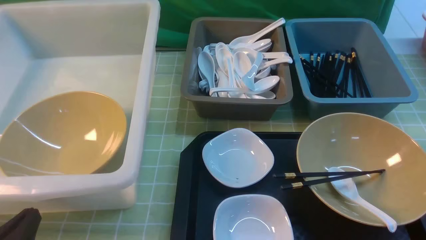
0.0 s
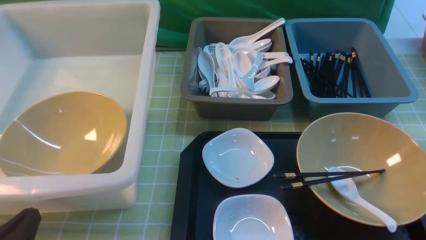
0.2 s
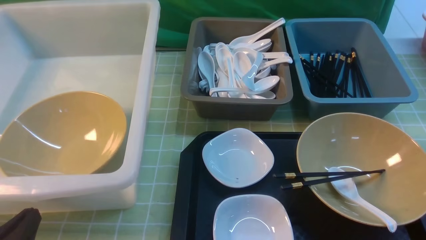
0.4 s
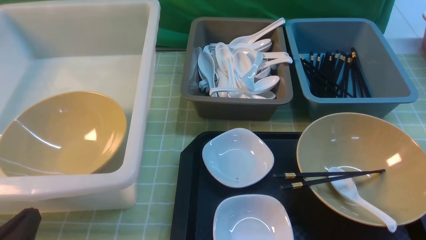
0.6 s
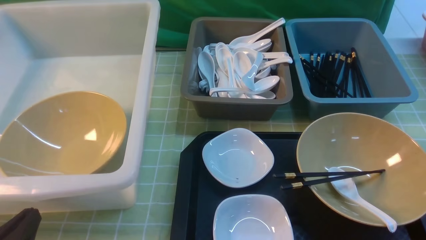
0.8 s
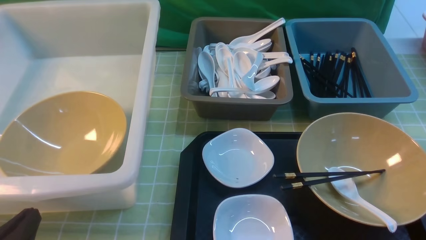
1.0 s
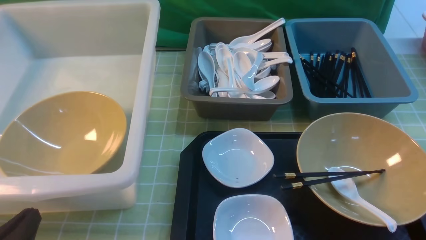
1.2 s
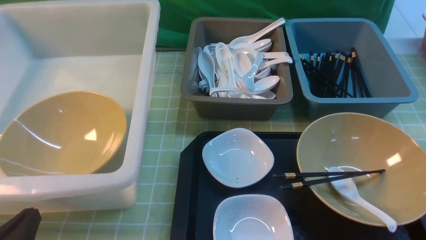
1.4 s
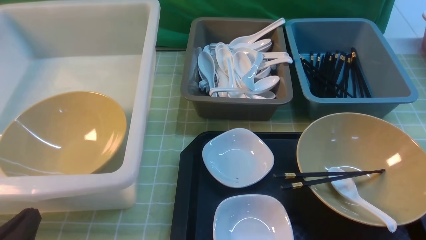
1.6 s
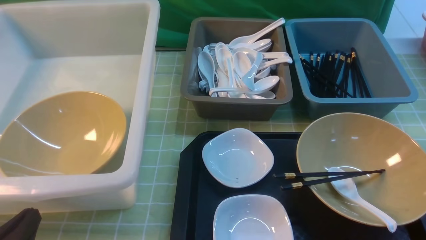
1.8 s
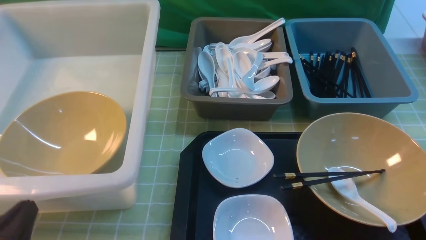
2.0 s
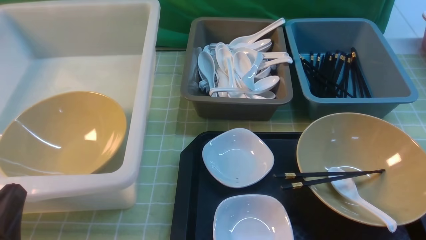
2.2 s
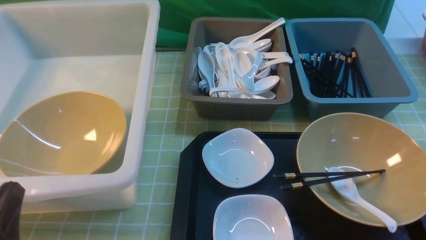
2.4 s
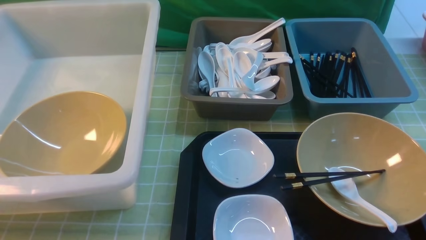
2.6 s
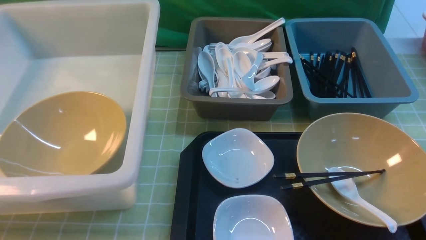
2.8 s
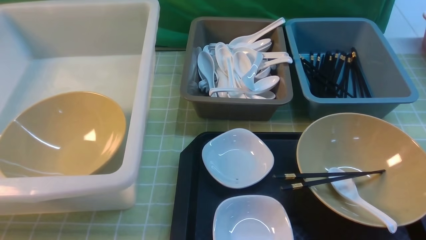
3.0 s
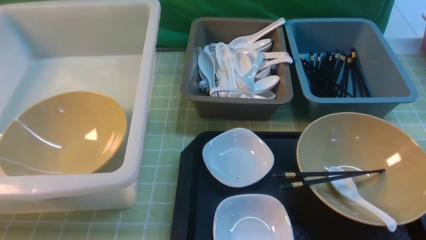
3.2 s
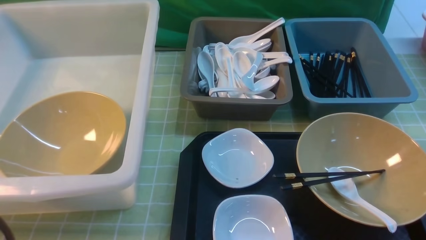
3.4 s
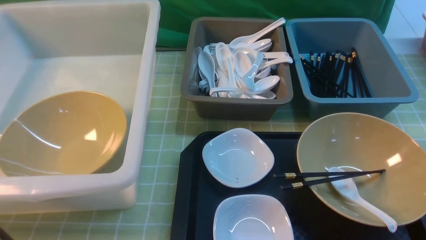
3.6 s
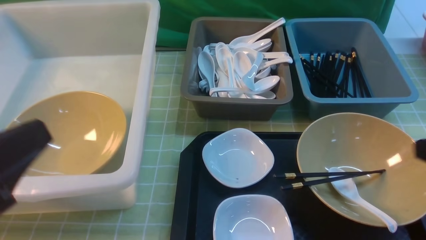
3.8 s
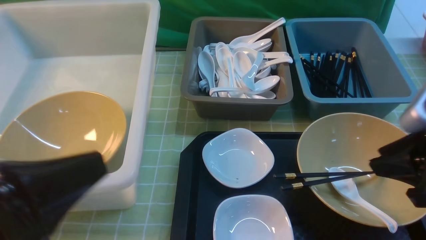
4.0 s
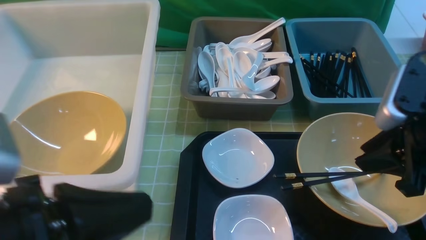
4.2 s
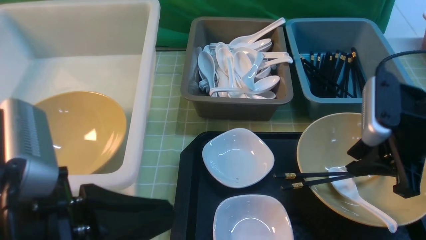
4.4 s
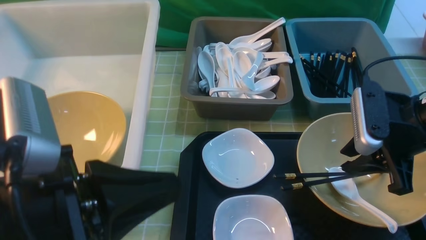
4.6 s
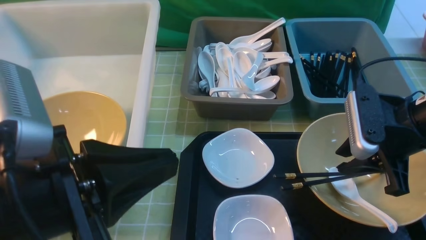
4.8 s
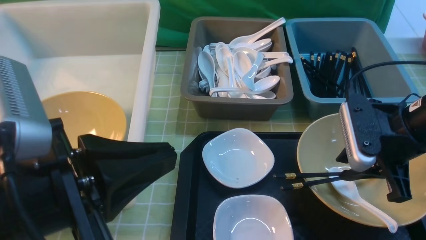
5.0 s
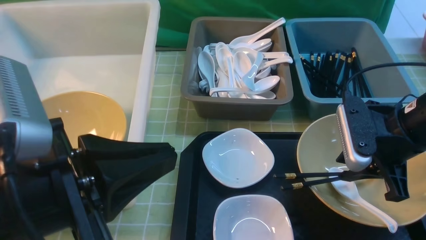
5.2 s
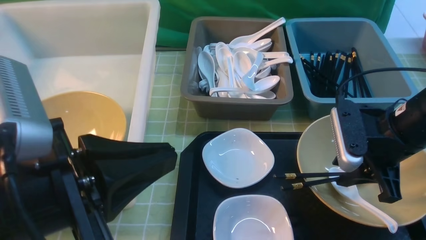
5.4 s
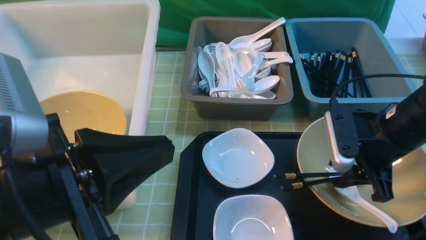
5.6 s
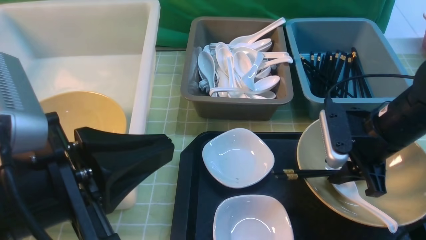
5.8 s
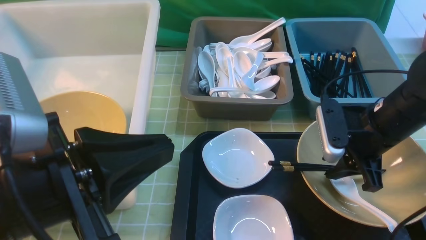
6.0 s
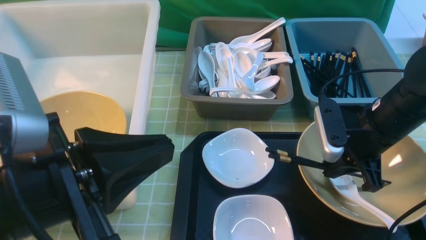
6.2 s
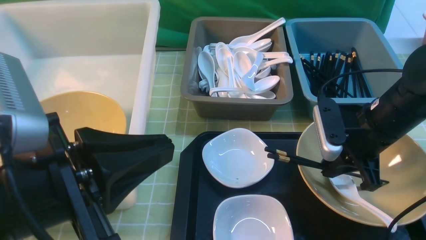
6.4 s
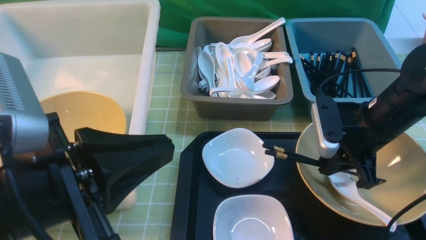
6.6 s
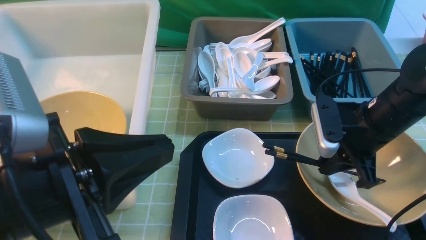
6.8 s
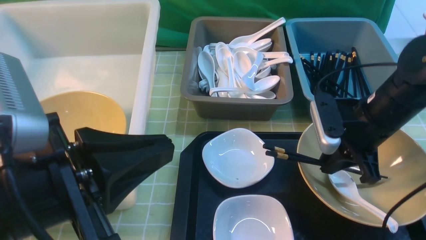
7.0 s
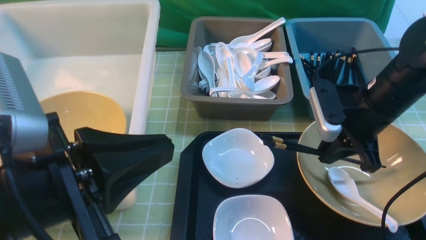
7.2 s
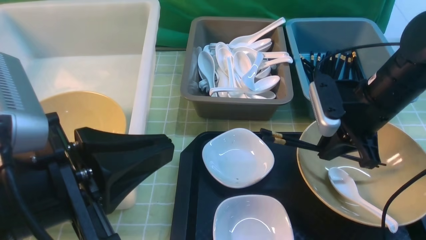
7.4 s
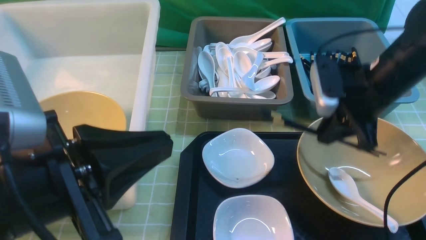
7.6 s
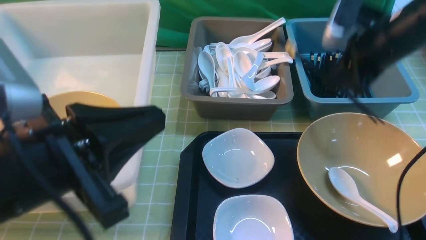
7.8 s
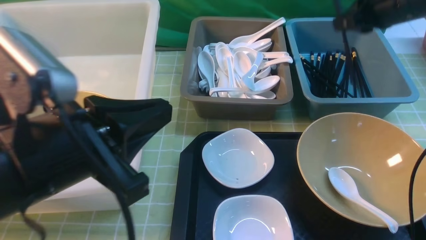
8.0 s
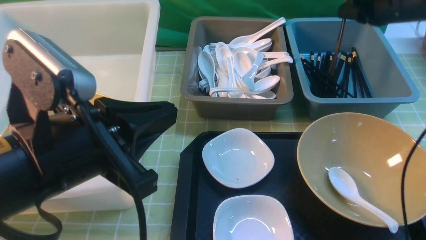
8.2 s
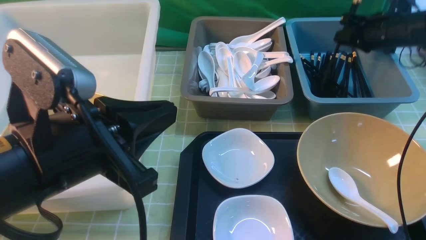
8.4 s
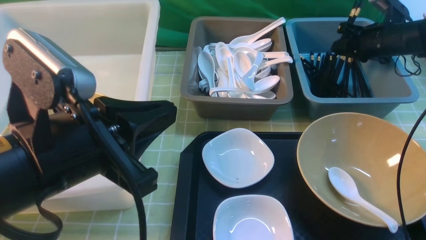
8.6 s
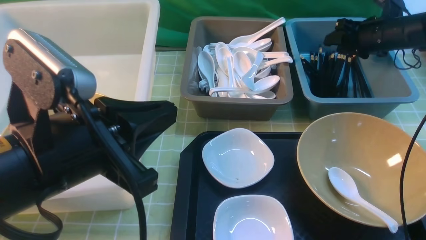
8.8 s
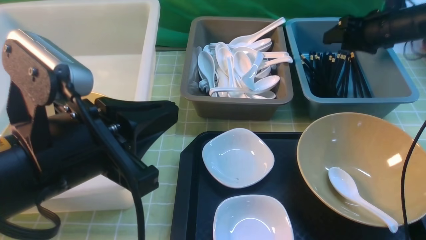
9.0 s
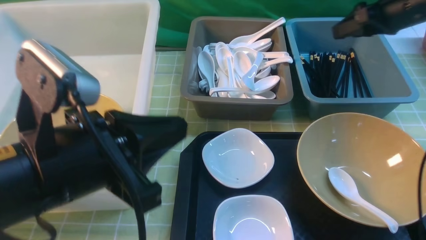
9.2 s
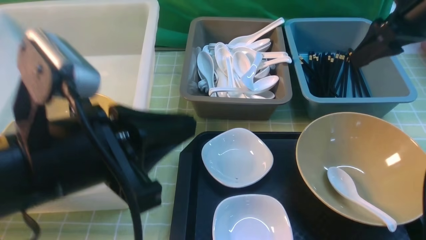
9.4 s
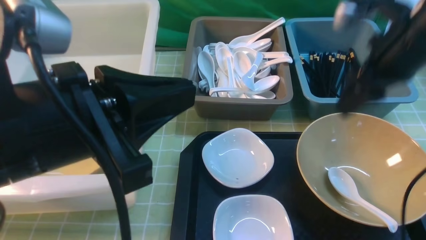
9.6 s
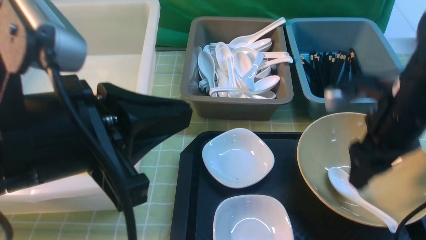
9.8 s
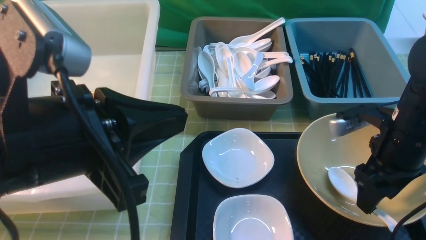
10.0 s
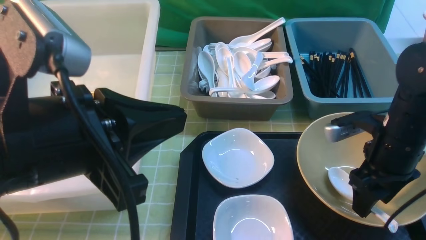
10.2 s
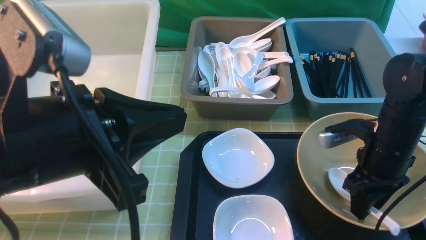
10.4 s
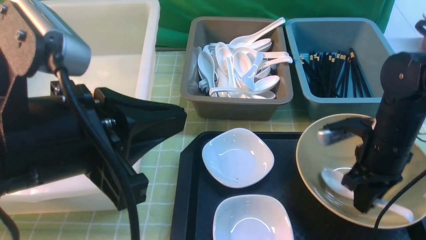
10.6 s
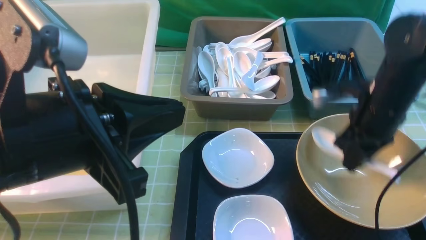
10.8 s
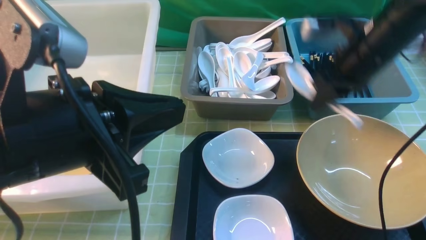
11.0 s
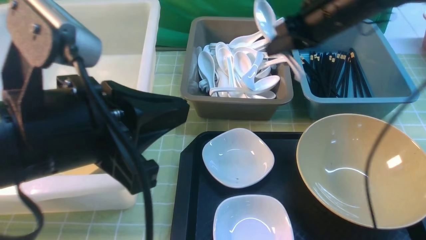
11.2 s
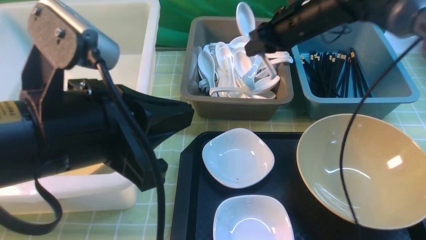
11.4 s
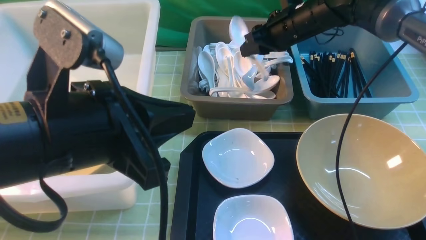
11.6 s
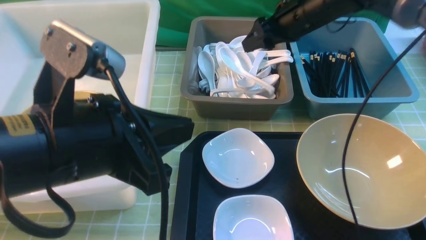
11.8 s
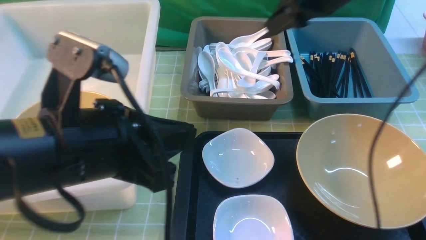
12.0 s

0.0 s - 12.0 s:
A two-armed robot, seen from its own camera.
Task of the whole recording: on green table put chopsticks spoon bowls plates into blue grey white boxes.
Step, 0.0 s - 7.4 s: use the right arm to grab the chopsticks.
Step, 7.6 s - 9.2 s: use the right arm to put the chopsticks into the small storage box on the right.
Step, 9.6 s - 10.8 s: use the right arm to grab the soup spoon in the middle.
0.0 s - 1.6 s: Both grippers stay about where they are.
1.6 s - 3.0 s: Both grippers travel together upward, approximately 15 cm.
3.0 s - 4.4 s: The right gripper is displaced forward by roughly 20 cm. The left gripper shifts about 10 cm to the right.
4.4 s - 6.0 s: The right gripper heads downward and forward, covering some 10 cm.
6.0 s - 7.6 s: The right gripper goes some 5 cm upward.
7.6 s - 9.0 s: The right gripper travels forward and to the right by some 15 cm, and opens.
9.0 s - 10.4 s: The right gripper goes approximately 20 cm backward, to the left and downward.
10.4 s - 12.0 s: The left gripper changes place by roughly 5 cm. Meanwhile the right gripper is displaced upward and forward by roughly 25 cm, and opens.

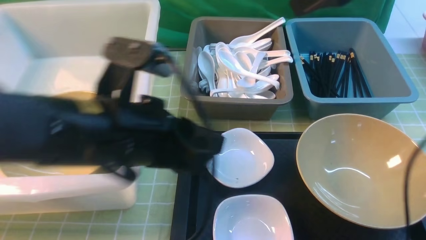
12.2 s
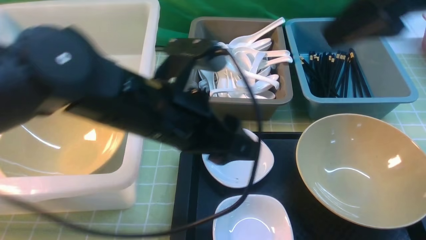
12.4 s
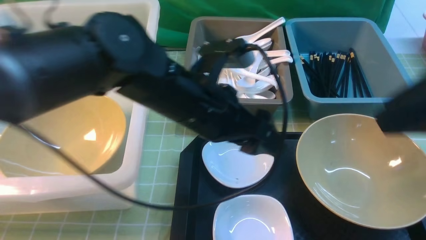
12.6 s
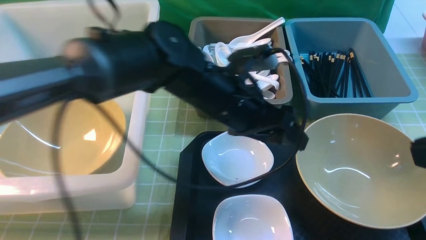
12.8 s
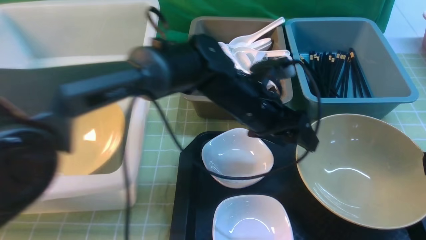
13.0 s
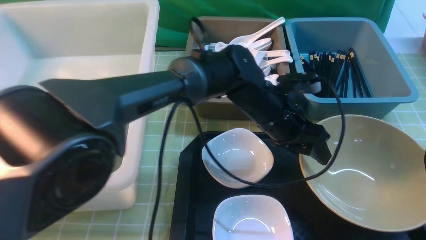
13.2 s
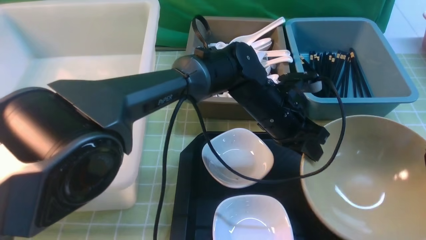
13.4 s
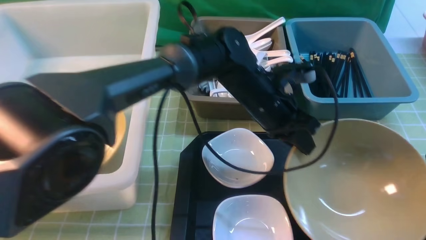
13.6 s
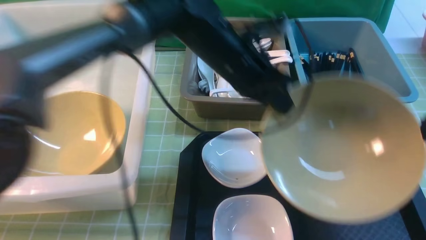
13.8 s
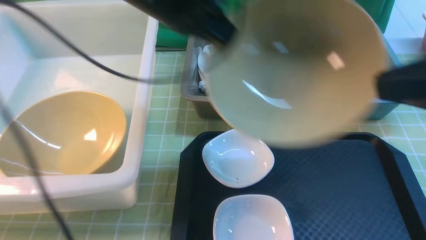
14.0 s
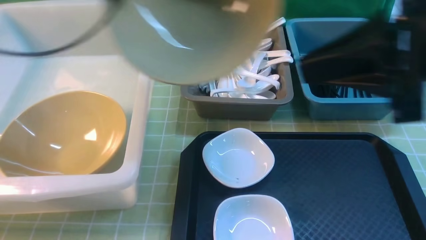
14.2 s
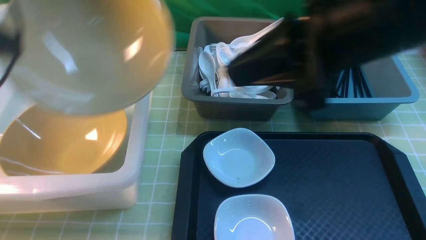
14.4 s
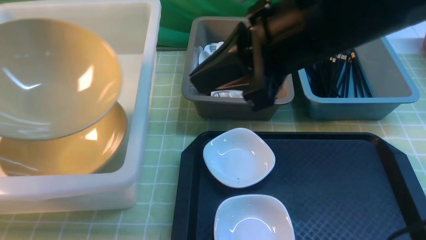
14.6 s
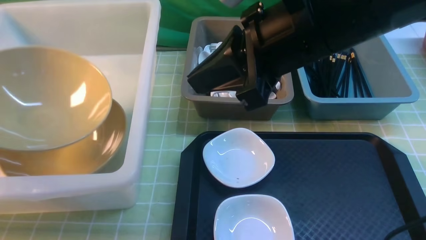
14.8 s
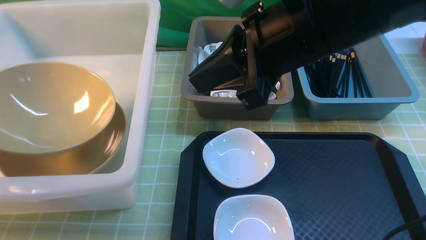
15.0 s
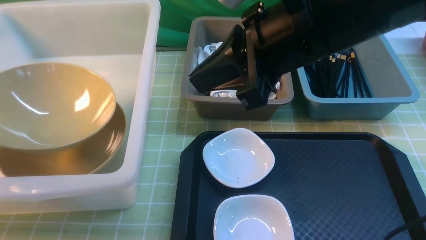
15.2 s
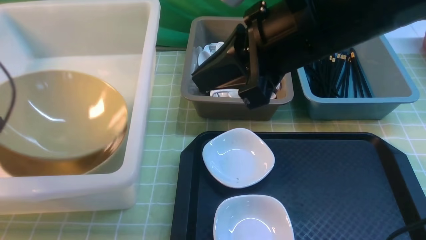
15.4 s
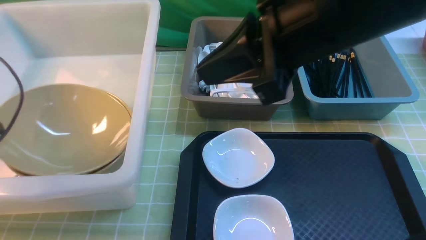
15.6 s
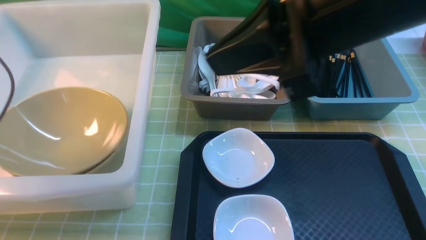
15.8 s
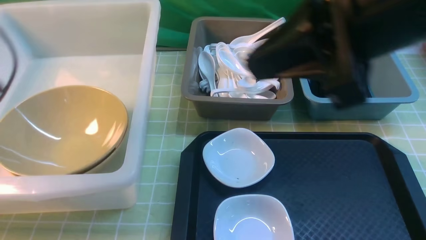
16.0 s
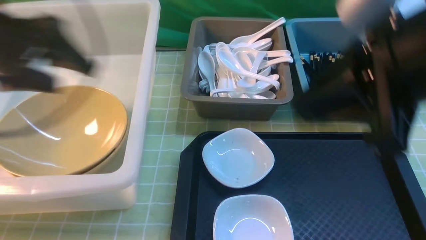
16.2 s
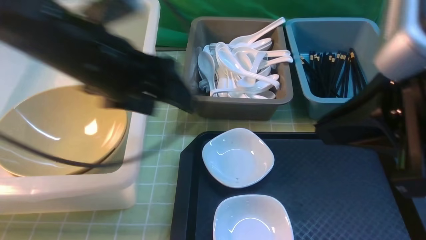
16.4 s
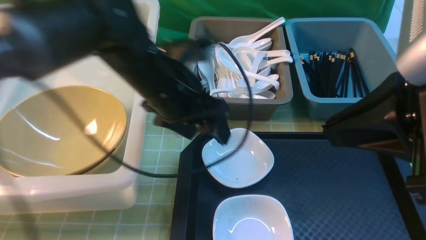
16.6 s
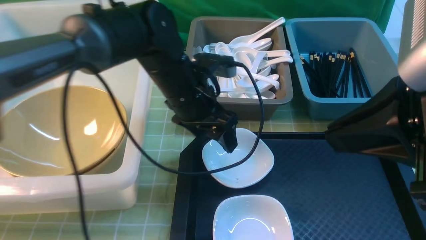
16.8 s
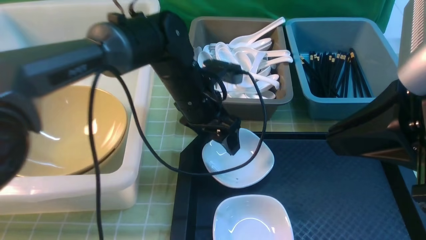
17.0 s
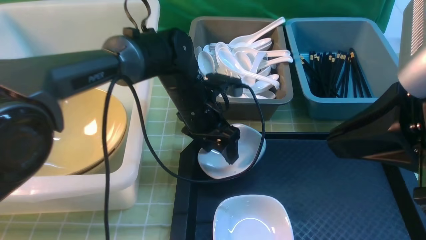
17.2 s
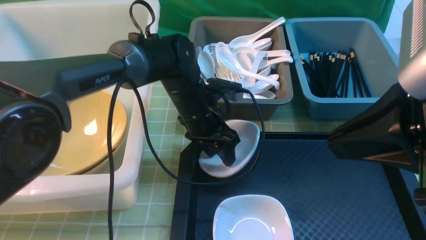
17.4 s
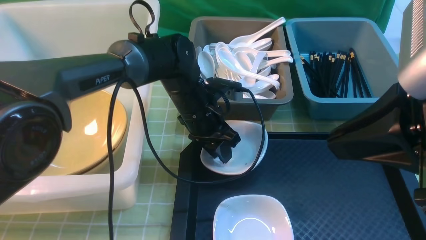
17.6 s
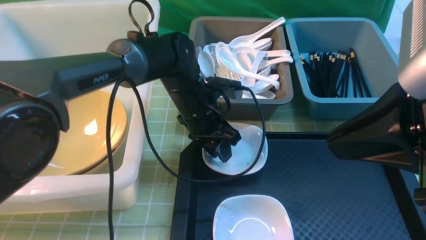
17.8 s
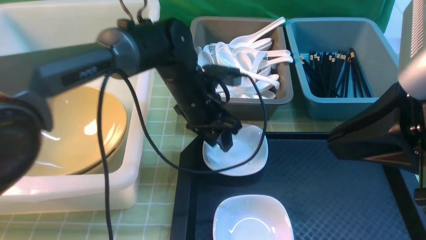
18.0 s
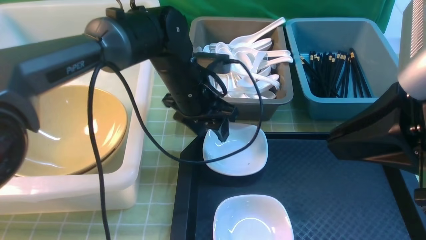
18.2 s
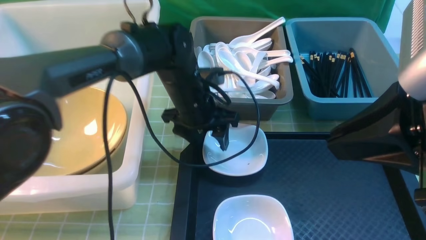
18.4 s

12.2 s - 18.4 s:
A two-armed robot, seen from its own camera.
Task of the whole recording: on green table put chopsticks spoon bowls plates into blue grey white boxes.
Step, 12.6 s - 13.6 s: use the left arm to grab the yellow noodle bowl on the left.
Step, 13.8 s - 16.0 s: use the left arm to put the noodle bowl into the large storage box on the left.
12.2 s - 13.8 s: The left gripper goes approximately 20 cm forward, and closes its fingers, while the right gripper shifts roughly 20 cm backward, and closes.
13.8 s - 15.4 s: The right gripper travels to the left and forward by approximately 20 cm. Meanwhile the left gripper moves to the left, approximately 35 cm.
15.4 s - 16.8 s: The left gripper goes approximately 35 cm to the right, and opens its fingers. The right gripper is displaced backward and to the right by roughly 15 cm.
16.8 s - 18.4 s: The left gripper shifts by approximately 5 cm, and closes, then reopens.
